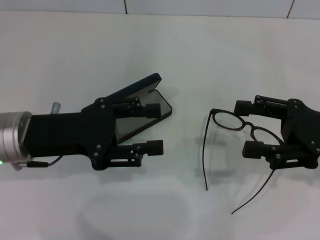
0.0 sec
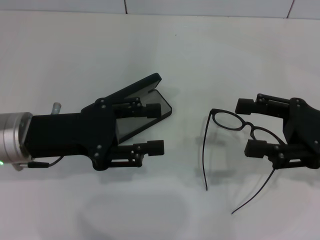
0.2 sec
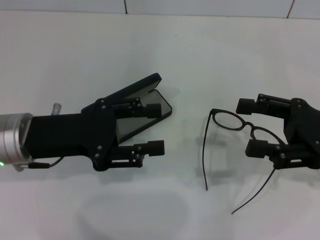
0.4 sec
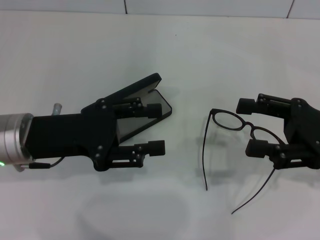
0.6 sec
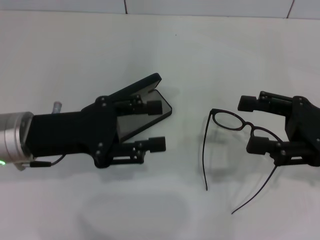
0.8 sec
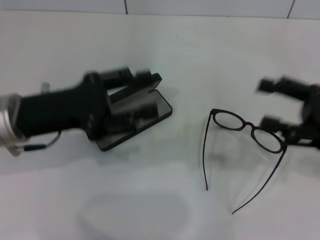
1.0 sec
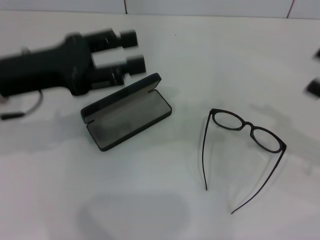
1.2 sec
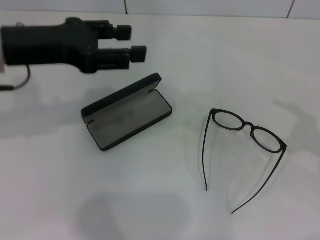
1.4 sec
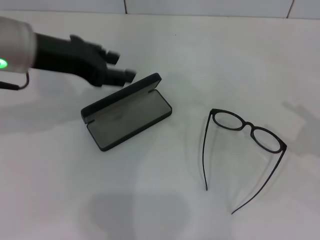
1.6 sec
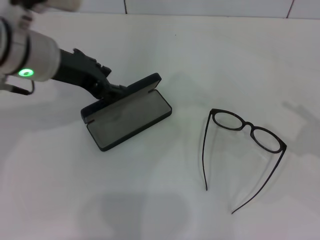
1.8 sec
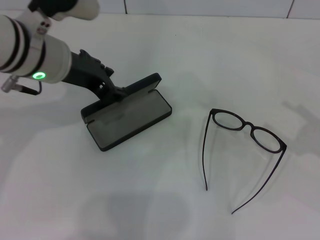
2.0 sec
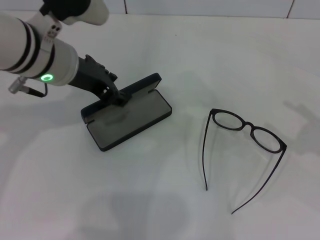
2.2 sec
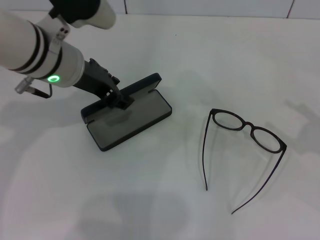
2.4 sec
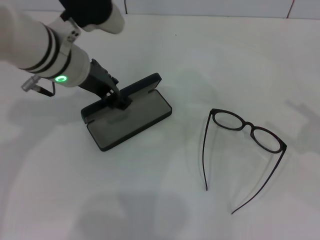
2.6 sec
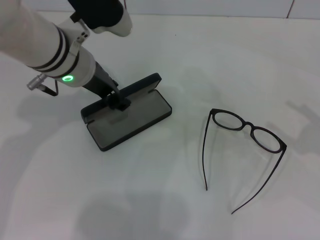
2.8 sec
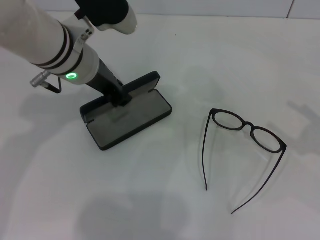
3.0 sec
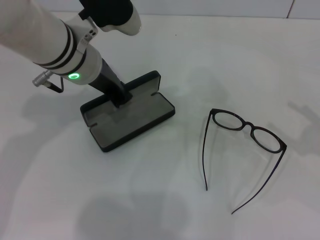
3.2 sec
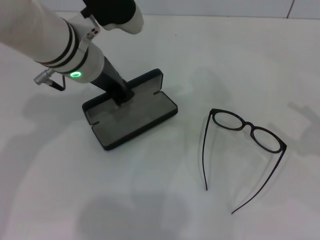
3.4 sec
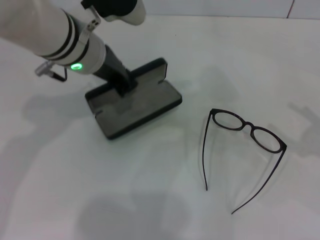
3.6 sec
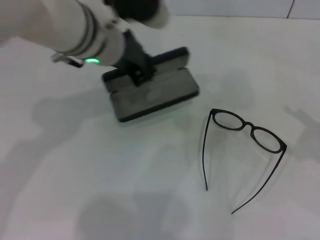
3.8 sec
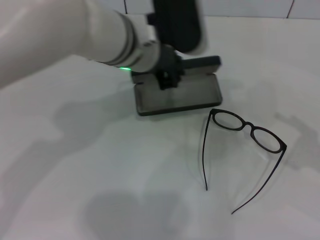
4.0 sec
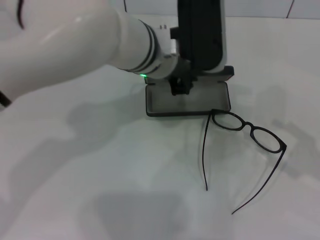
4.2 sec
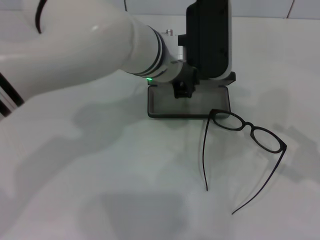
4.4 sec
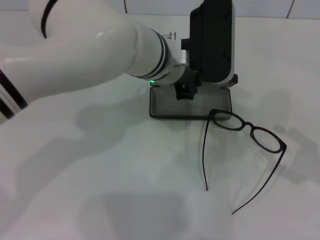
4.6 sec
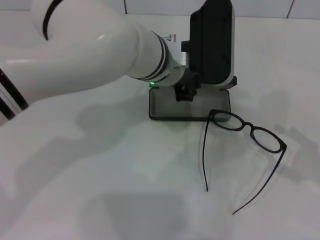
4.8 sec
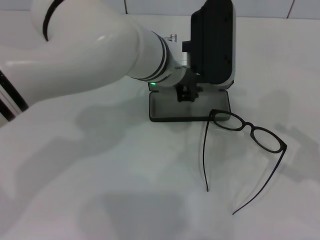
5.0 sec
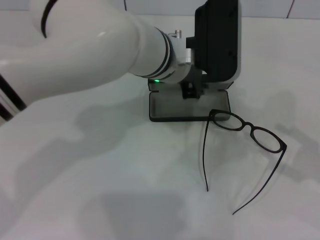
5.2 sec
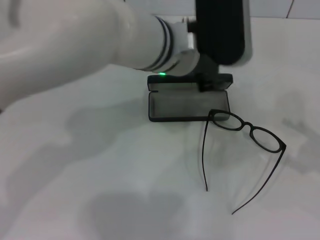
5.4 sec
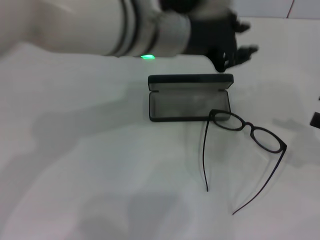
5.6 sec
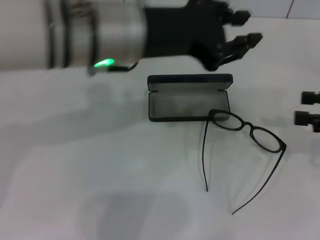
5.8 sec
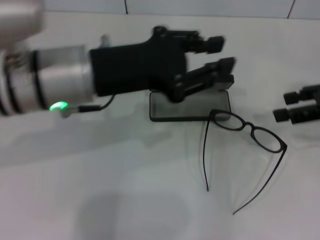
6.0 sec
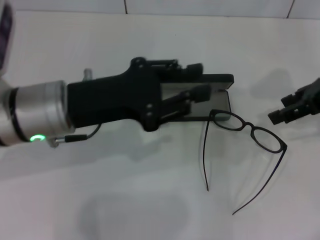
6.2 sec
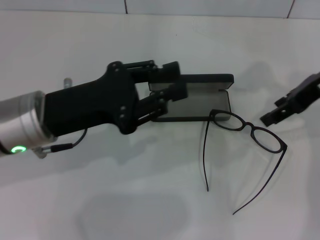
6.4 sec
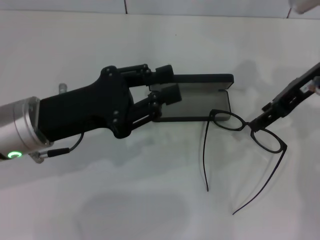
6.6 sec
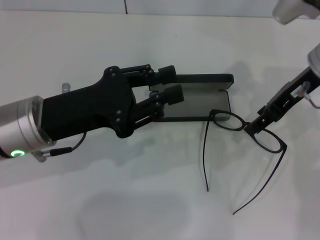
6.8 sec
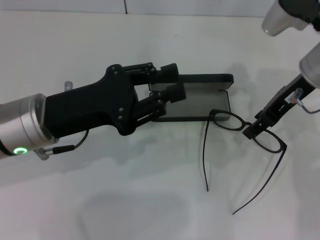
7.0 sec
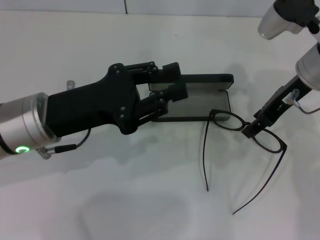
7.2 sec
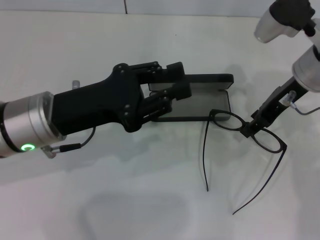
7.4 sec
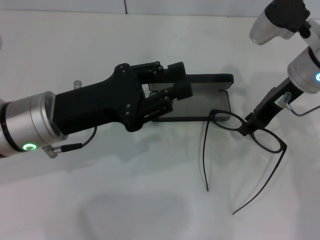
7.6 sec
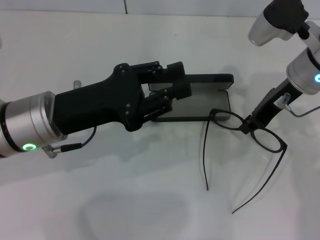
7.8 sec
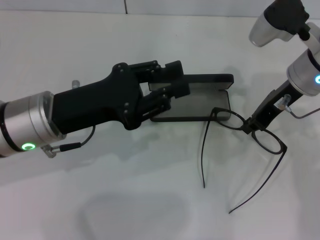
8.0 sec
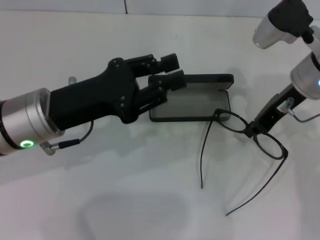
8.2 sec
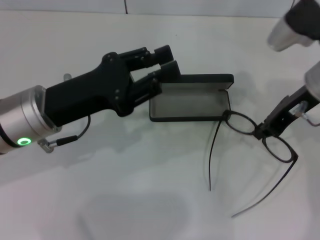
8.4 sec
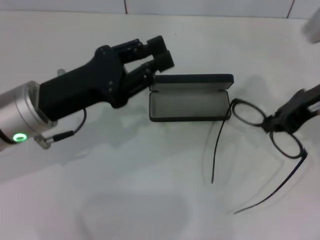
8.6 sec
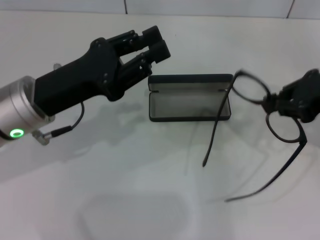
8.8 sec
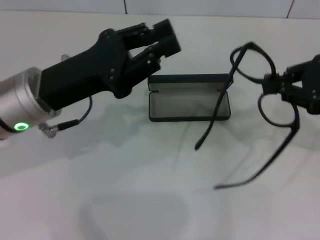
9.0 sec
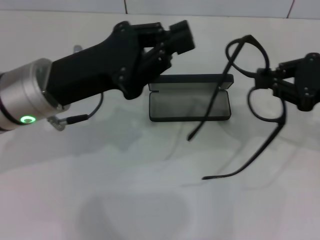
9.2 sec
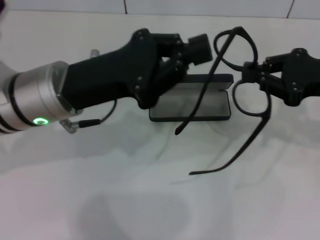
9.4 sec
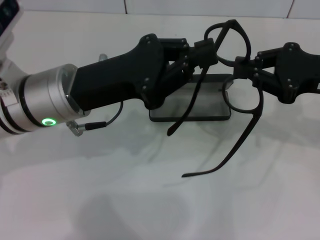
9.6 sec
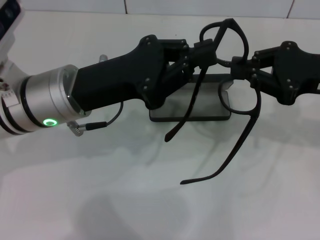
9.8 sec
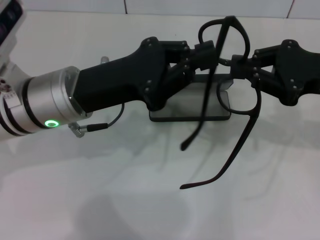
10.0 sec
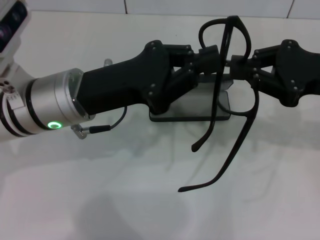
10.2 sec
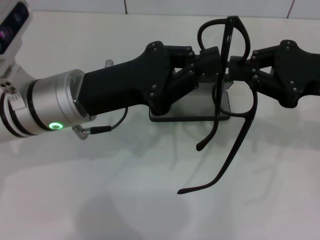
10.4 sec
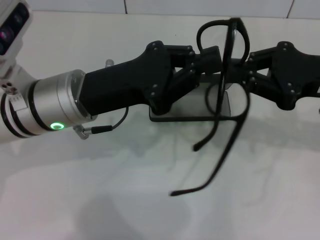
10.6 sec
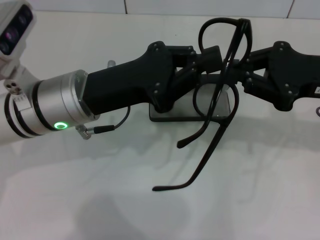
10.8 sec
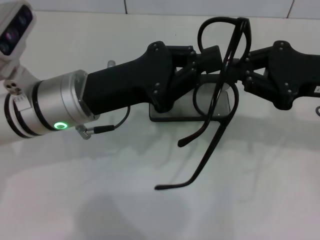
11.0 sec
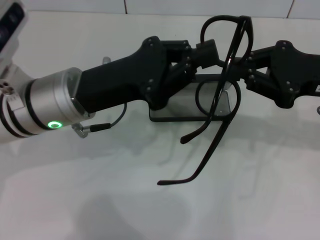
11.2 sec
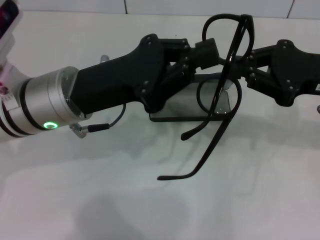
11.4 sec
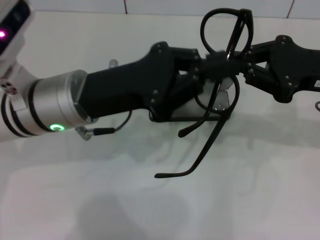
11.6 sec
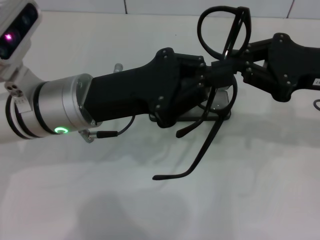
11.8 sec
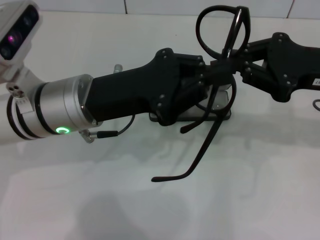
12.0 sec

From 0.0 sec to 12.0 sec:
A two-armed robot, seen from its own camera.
Step, from 0.0 sec to 3.2 sec: Grab the glasses case with your left hand.
Step, from 3.4 sec to 5.0 sec: Place the glasses case in the center of the table with your left hand.
Step, from 5.2 sec to 8.0 sec: Grab the eyeglass frame with your right hand.
From 0.0 sec to 1.6 sec: The left gripper heads upward and forward, covering roughly 10 cm. The right gripper goes roughly 10 cm to the right.
From 1.6 sec to 3.0 sec: The left gripper goes about 10 cm to the right and downward.
From 3.0 sec to 4.4 sec: The left gripper shifts roughly 10 cm to the right.
From 4.4 sec to 6.0 sec: The right gripper shifts approximately 15 cm forward, upward and to the left; the left gripper goes roughly 15 cm to the left and backward.
From 6.0 sec to 7.6 sec: The left gripper is displaced downward by roughly 5 cm. Meanwhile the right gripper heads to the left and forward, covering about 15 cm.
From 7.6 sec to 9.0 sec: The right gripper is displaced to the right and backward by some 15 cm, and closes its fingers.
From 9.0 sec to 10.4 sec: The left gripper closes its fingers.
From 10.4 sec to 12.0 sec: Both grippers stay put.

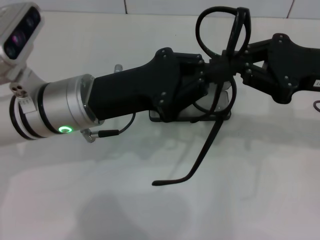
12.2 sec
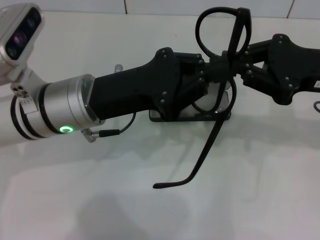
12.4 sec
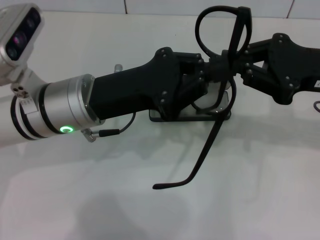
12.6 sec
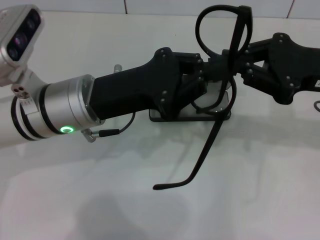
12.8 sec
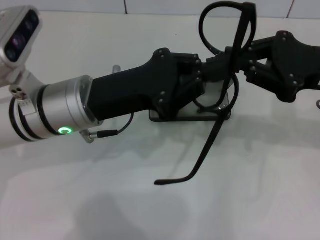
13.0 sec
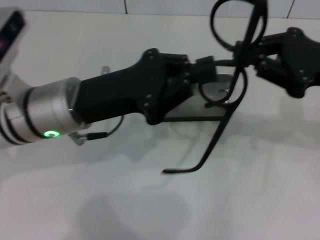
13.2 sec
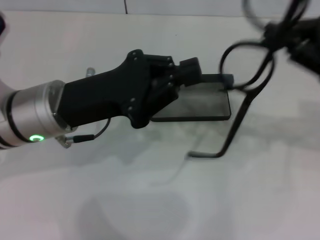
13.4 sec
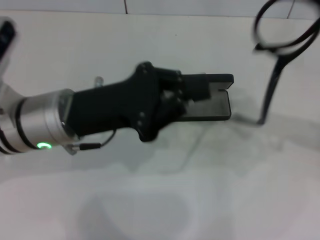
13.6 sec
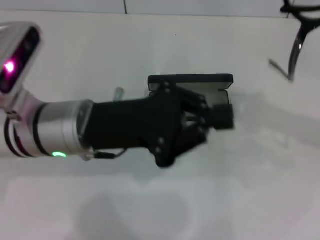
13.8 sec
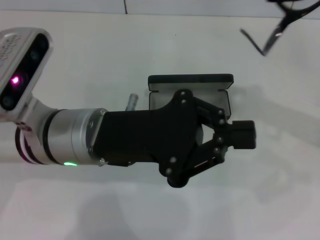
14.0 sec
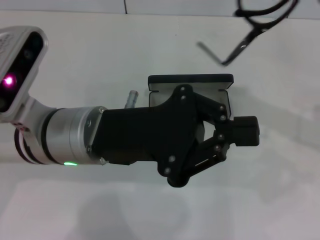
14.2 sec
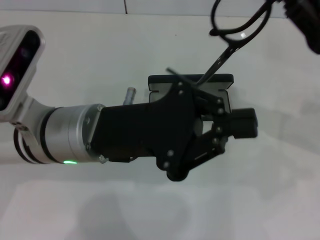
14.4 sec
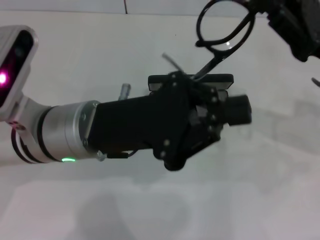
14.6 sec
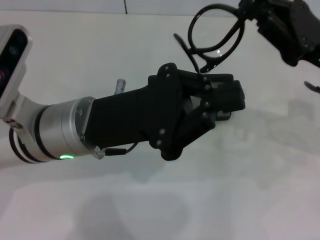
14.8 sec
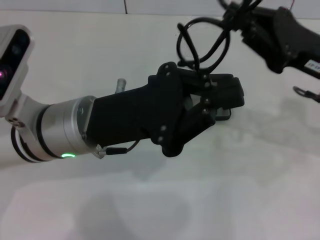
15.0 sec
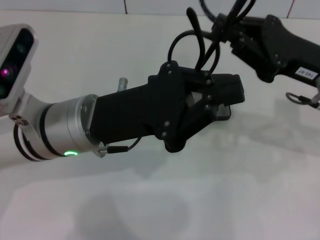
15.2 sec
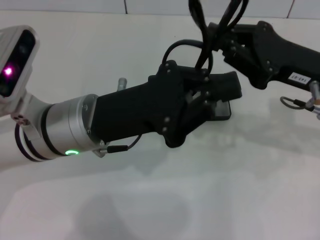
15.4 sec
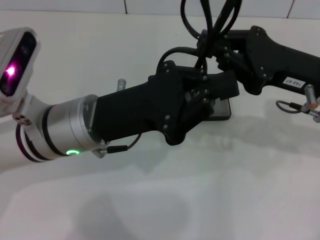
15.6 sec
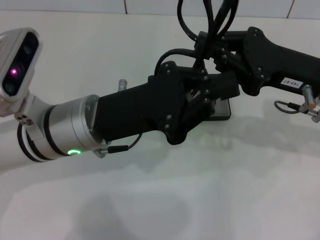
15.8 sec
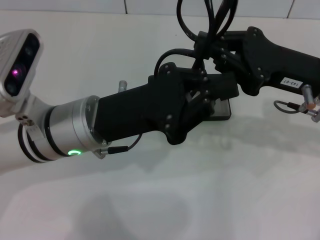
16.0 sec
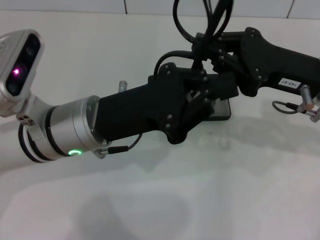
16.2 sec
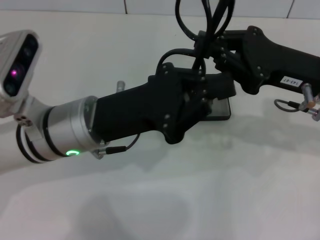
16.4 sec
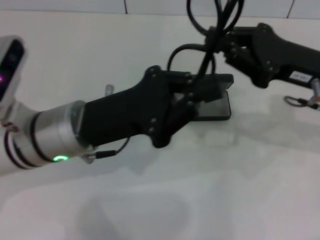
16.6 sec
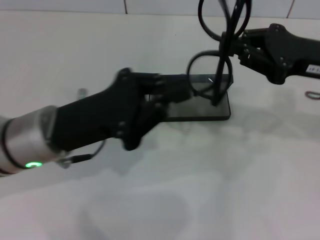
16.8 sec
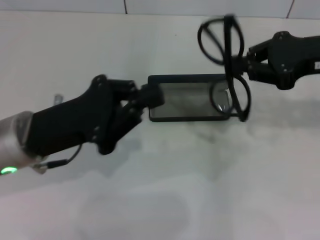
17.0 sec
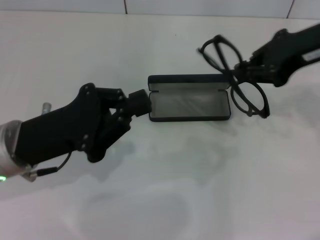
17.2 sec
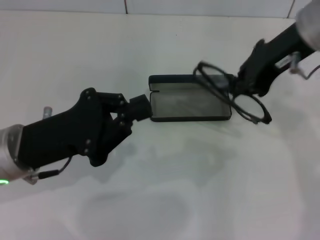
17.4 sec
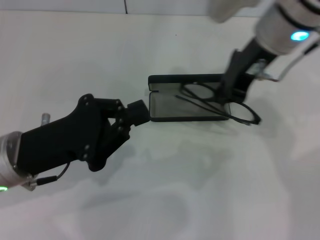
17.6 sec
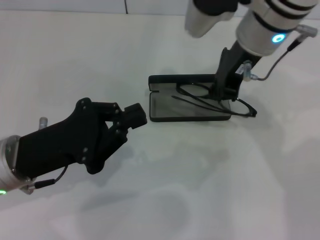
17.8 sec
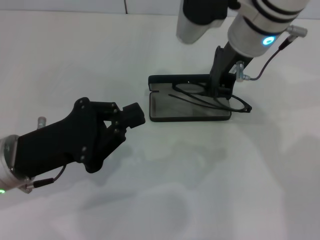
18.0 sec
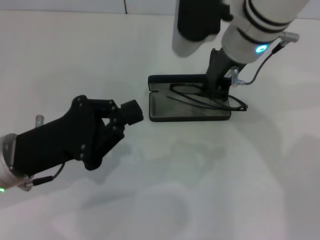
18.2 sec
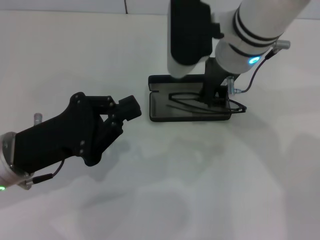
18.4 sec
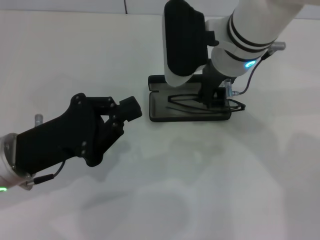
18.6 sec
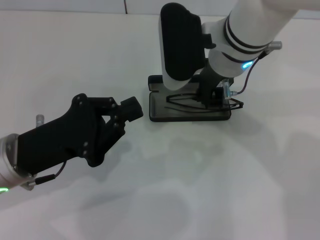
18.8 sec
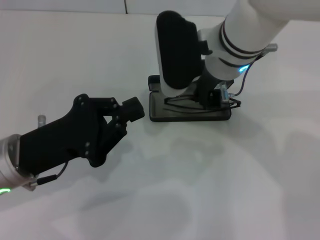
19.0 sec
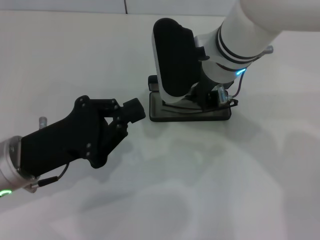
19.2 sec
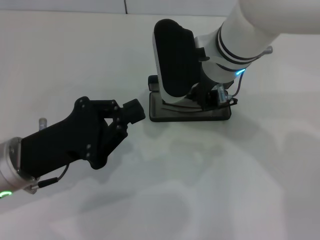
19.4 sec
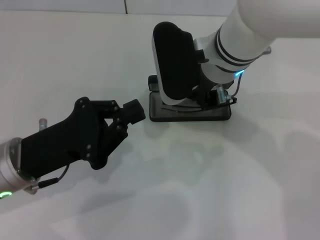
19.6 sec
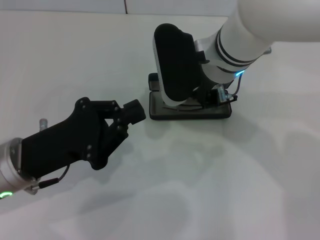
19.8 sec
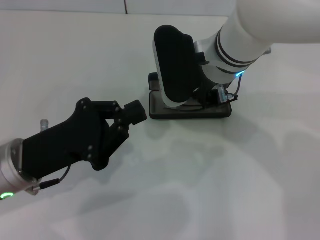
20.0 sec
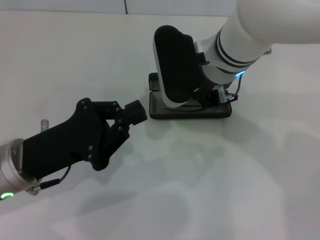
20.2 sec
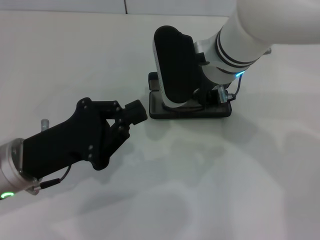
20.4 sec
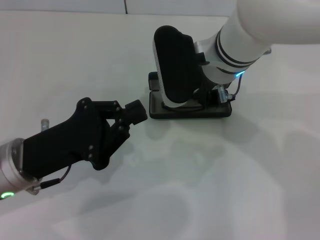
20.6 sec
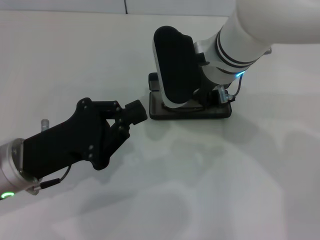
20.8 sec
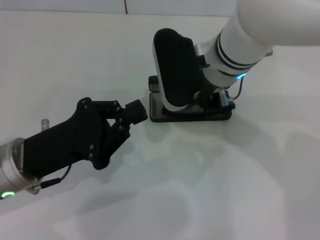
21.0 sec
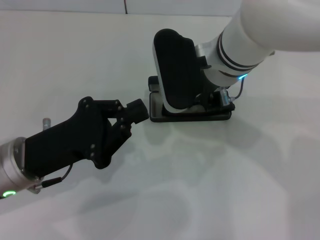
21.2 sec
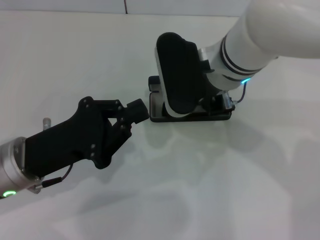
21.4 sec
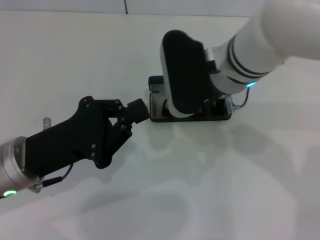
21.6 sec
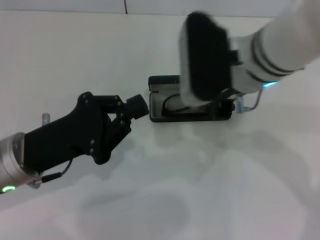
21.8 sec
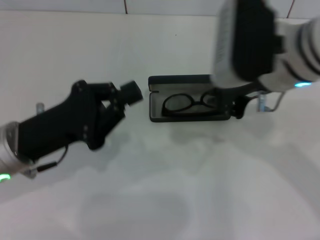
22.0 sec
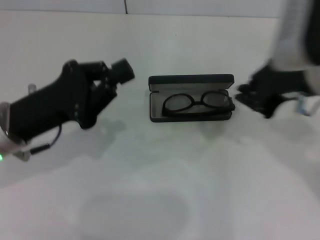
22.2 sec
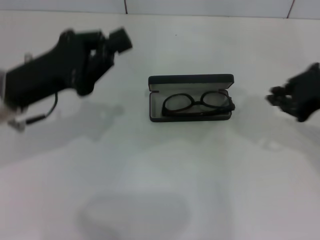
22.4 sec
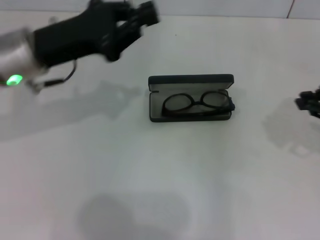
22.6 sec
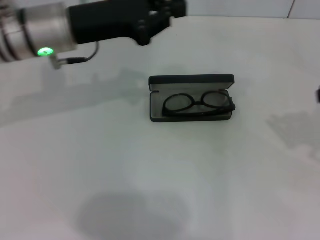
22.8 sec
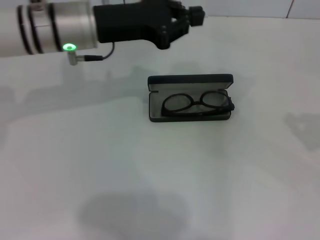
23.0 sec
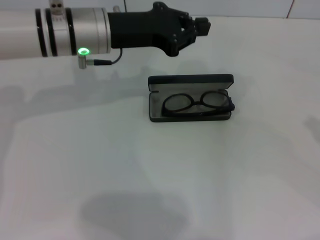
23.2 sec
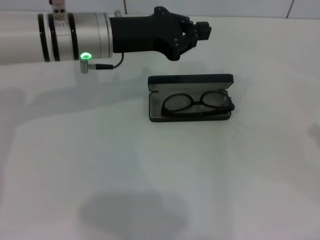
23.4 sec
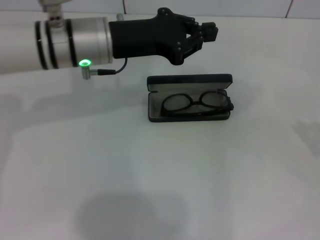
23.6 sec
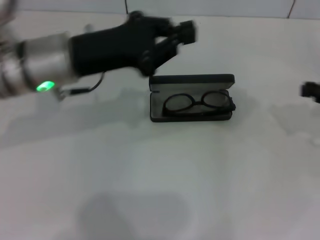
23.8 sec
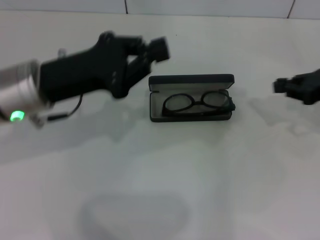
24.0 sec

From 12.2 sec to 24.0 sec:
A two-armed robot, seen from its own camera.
Step, from 12.2 sec to 16.2 sec: Fold the frame with your left hand.
From 12.2 sec to 13.6 sec: The right gripper moves to the right, about 5 cm.
From 13.6 sec to 15.2 sec: The right gripper goes approximately 10 cm to the left and downward.
From 15.2 sec to 16.6 sec: The grippers make only small movements.
From 16.6 sec to 18.2 sec: The left gripper goes some 10 cm to the left; the right gripper moves to the left, forward and upward, roughly 15 cm.
From 18.2 sec to 19.6 sec: The grippers stay close to where they were, moving slightly.
From 19.6 sec to 21.0 sec: Both grippers stay about where they are.
From 21.0 sec to 22.6 sec: The left gripper is displaced forward and upward by approximately 15 cm, while the right gripper shifts approximately 25 cm to the right.
From 22.6 sec to 24.0 sec: The right gripper travels downward and forward by approximately 10 cm.
